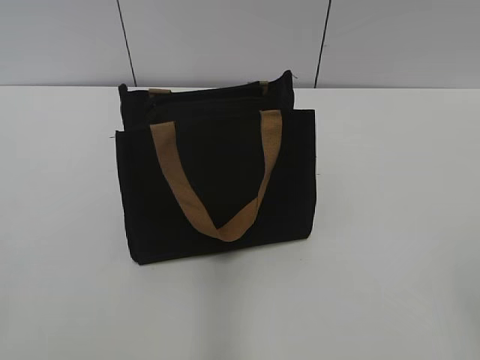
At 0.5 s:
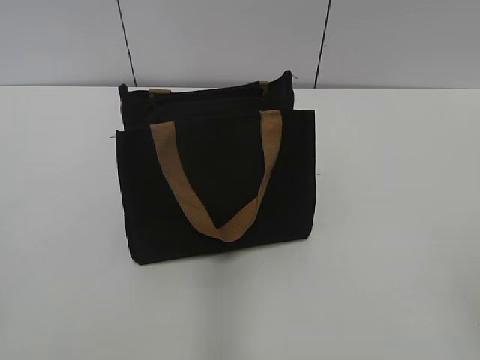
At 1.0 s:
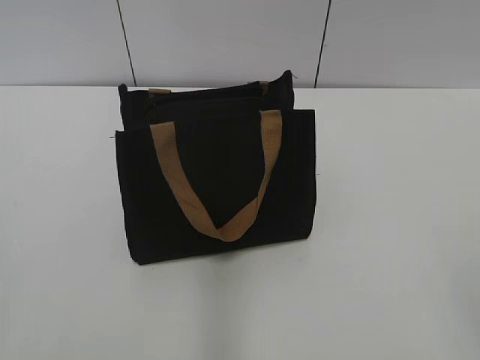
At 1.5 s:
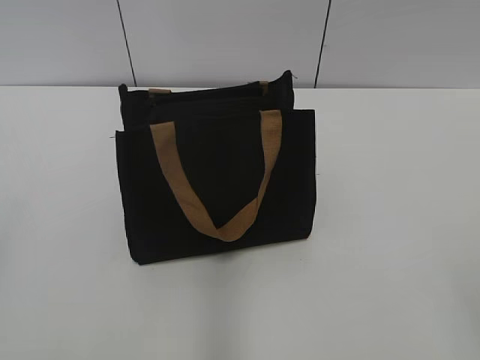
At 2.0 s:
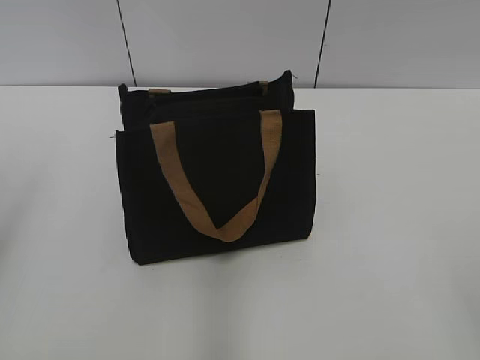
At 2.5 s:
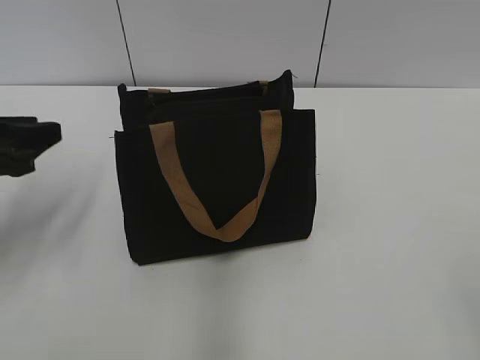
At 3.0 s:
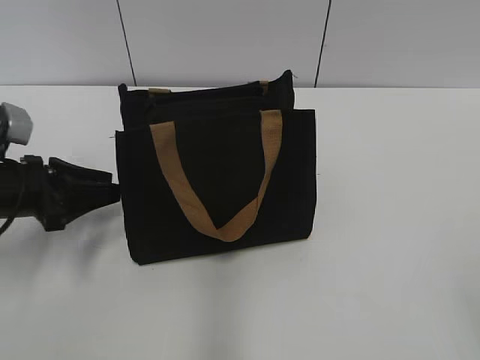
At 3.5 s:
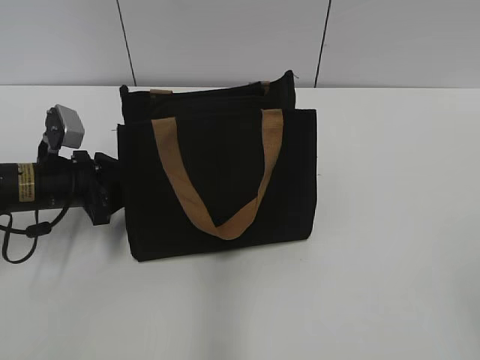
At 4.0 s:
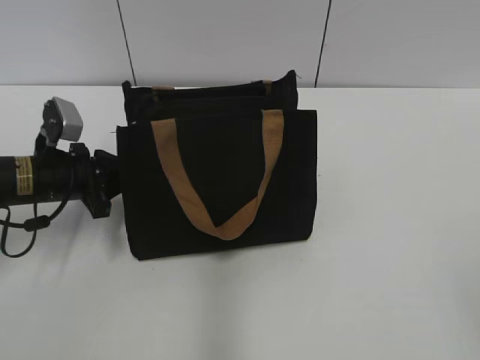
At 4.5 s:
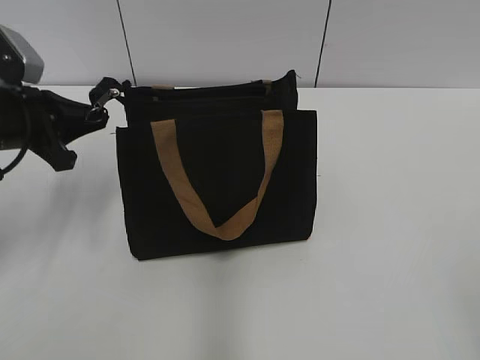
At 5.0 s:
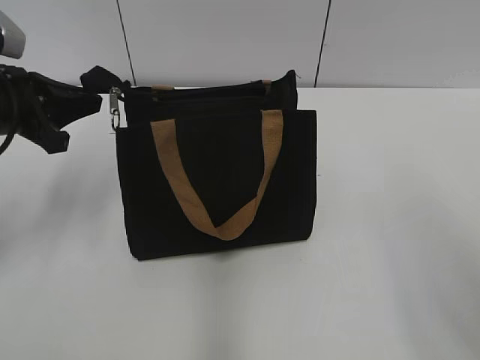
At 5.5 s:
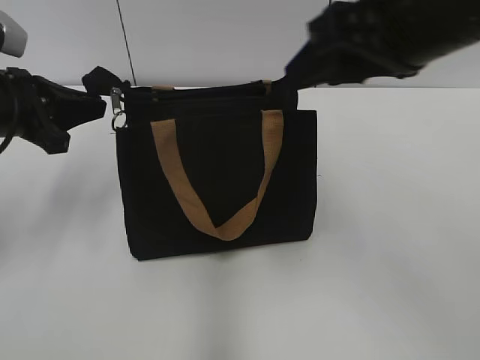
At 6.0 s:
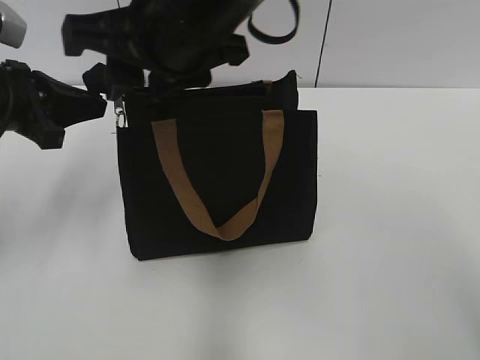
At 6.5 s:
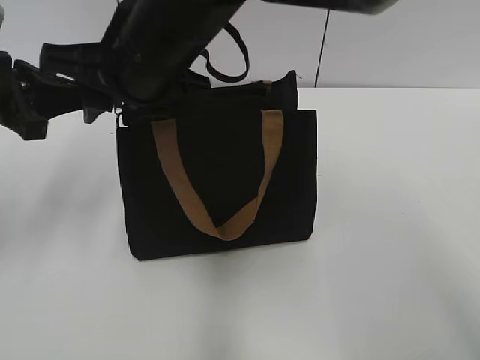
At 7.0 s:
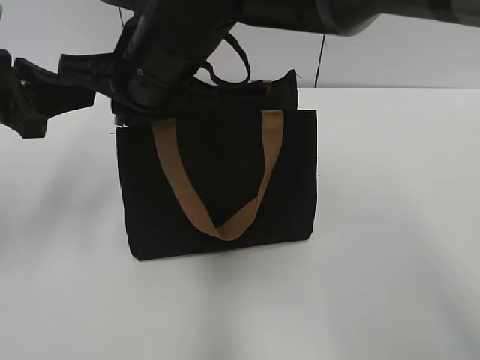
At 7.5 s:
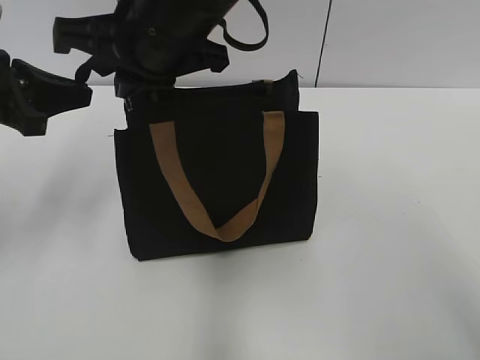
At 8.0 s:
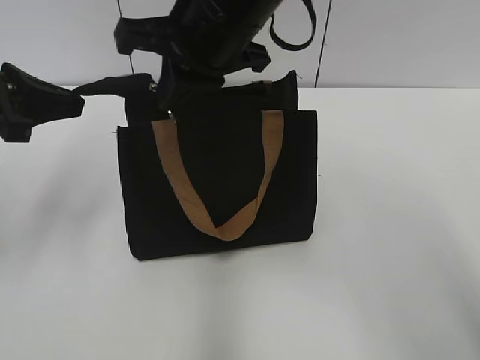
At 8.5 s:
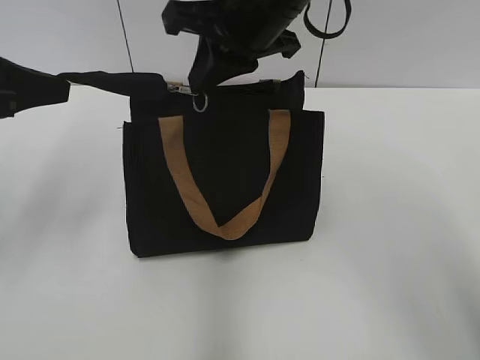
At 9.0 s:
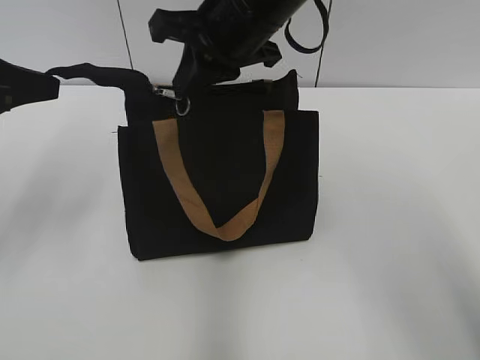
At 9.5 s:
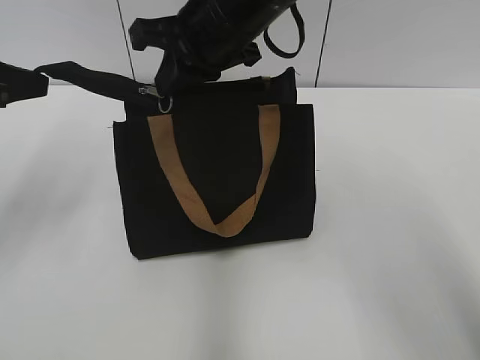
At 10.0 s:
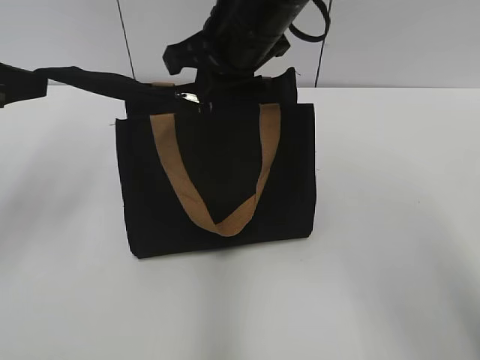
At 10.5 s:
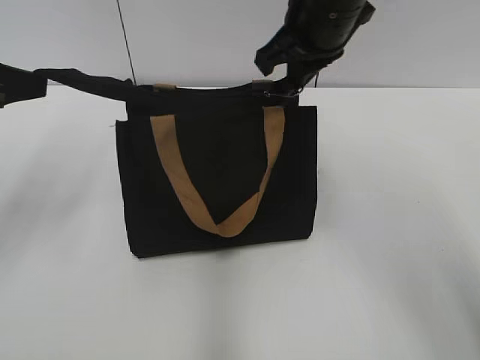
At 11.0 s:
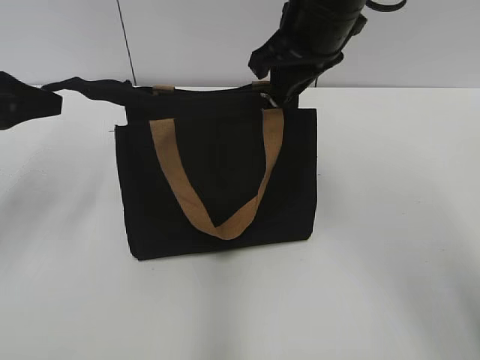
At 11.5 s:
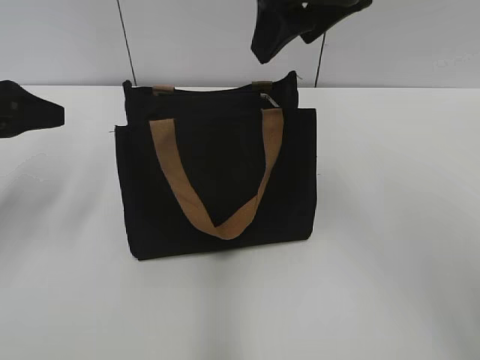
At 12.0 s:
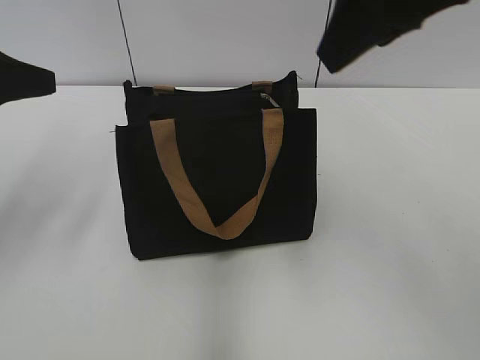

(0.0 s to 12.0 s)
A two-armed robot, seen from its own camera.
Step, 0.0 s - 11.0 s: Zip up the bag with your right hand.
2.0 s - 4.0 s: The left gripper is displaced downward and forward by approximately 30 cm, and closes its fingers.
4.0 s - 6.0 s: The left gripper heads upward, covering about 15 cm. Meanwhile the right gripper shifts about 40 cm to the left and forward.
6.0 s - 8.0 s: The right gripper closes its fingers.
8.0 s - 10.0 s: The right gripper moves about 5 cm.
10.0 s - 12.0 s: The right gripper moves upward, to the right and backward, approximately 20 cm, and opens its fingers; the left gripper opens up.

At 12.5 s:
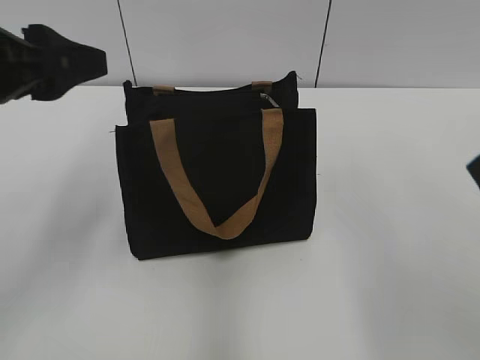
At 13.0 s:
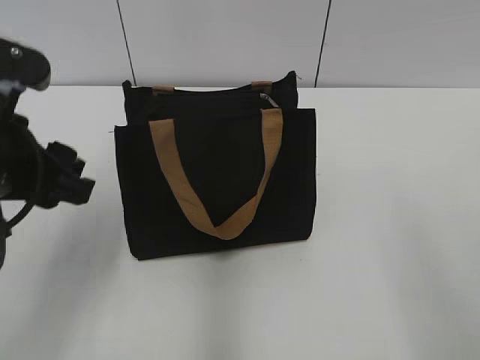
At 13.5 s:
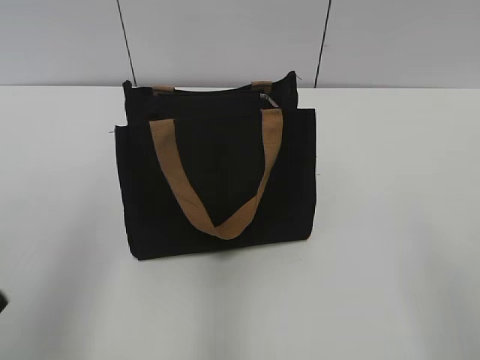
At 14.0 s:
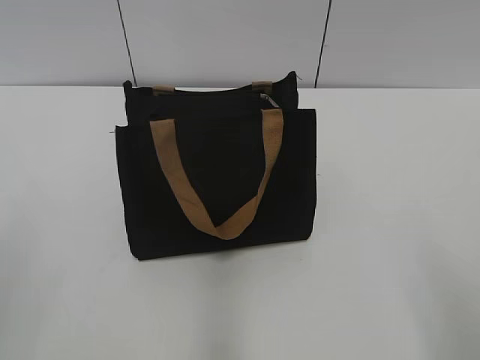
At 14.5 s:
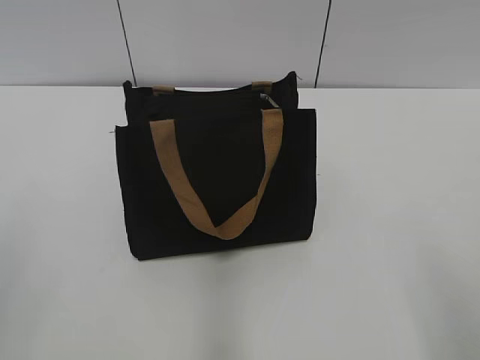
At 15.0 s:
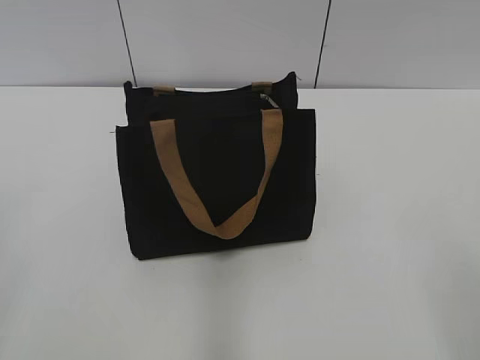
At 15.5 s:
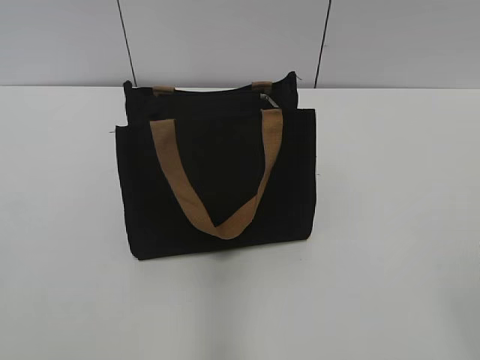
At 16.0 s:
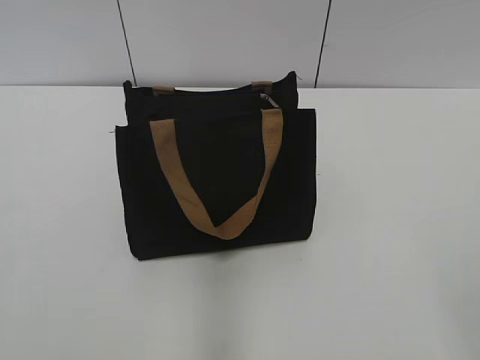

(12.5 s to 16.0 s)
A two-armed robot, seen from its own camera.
12.5 s - 14.5 s: The left gripper travels backward and to the left by roughly 20 cm.

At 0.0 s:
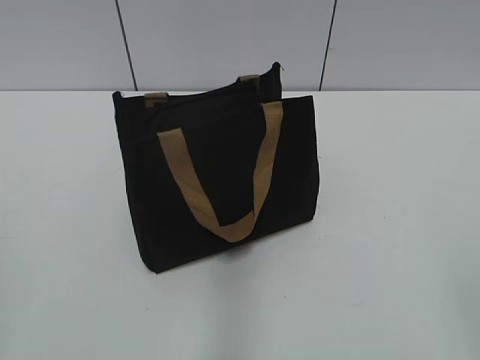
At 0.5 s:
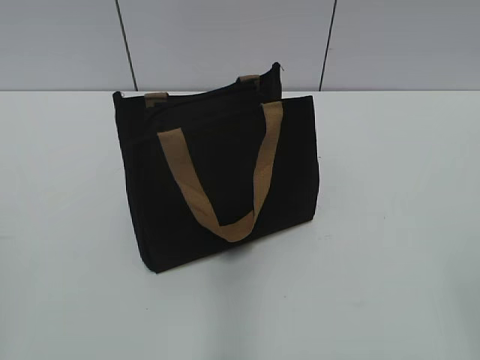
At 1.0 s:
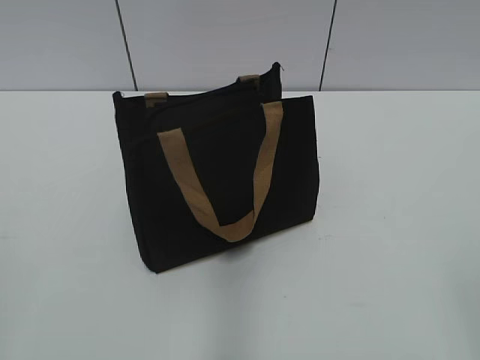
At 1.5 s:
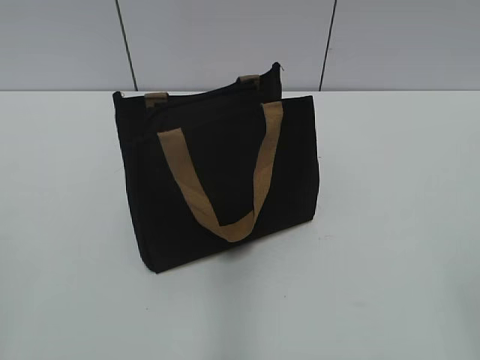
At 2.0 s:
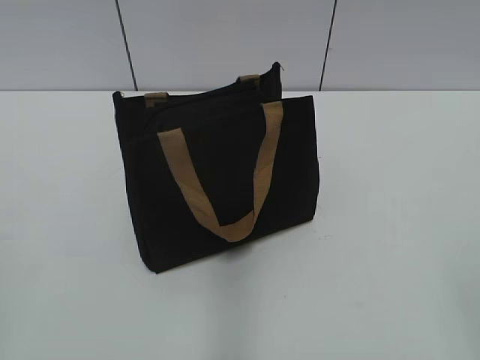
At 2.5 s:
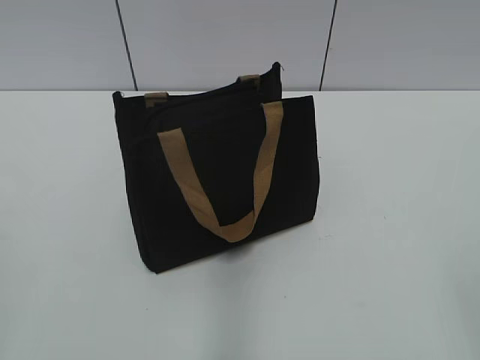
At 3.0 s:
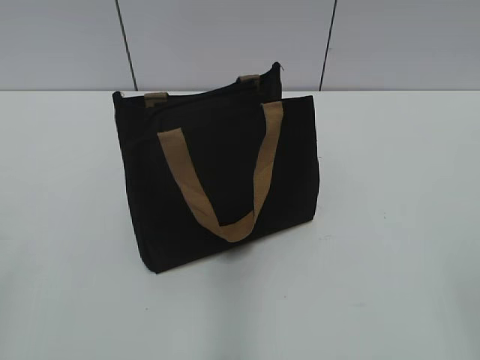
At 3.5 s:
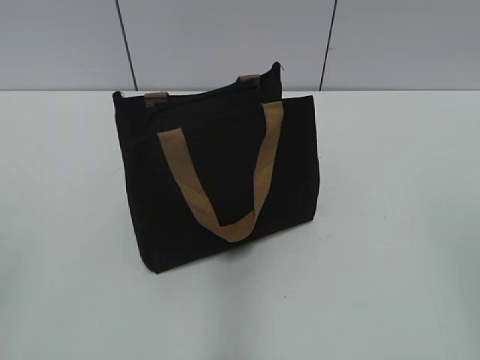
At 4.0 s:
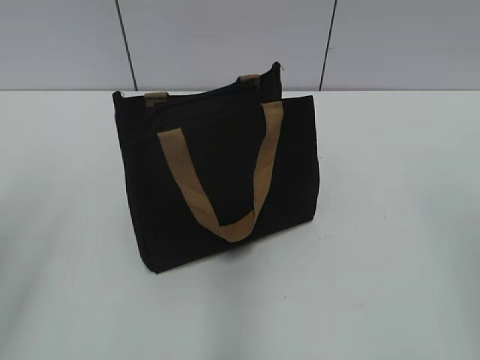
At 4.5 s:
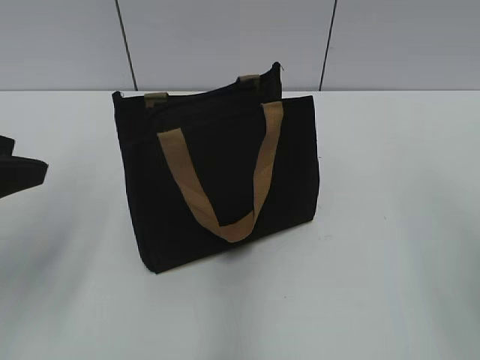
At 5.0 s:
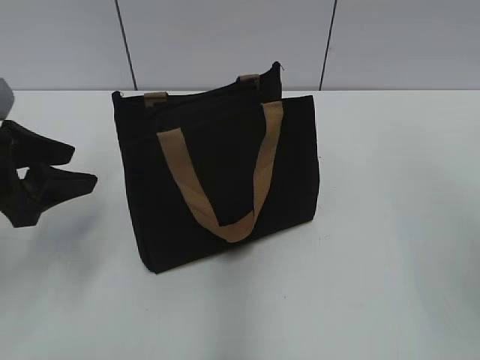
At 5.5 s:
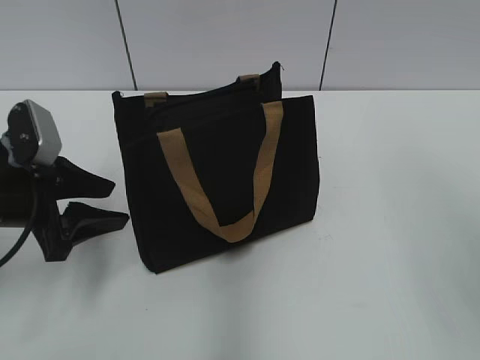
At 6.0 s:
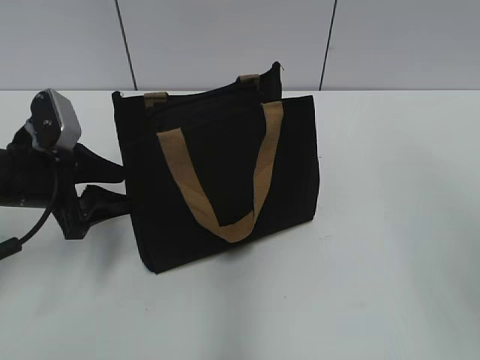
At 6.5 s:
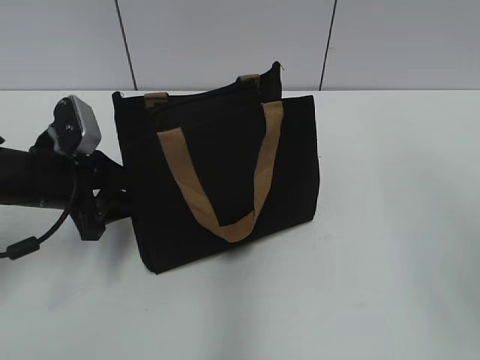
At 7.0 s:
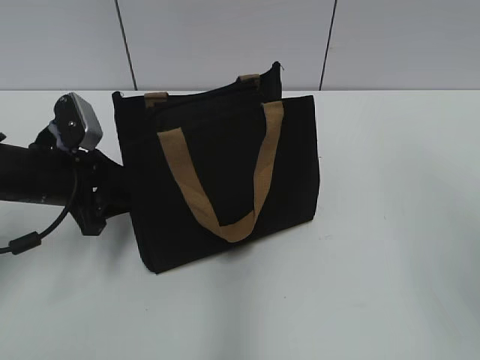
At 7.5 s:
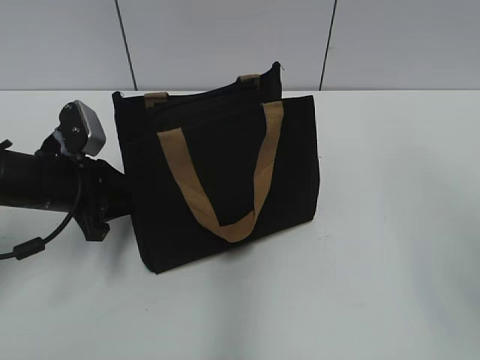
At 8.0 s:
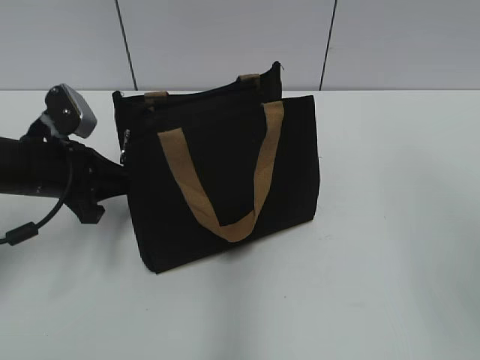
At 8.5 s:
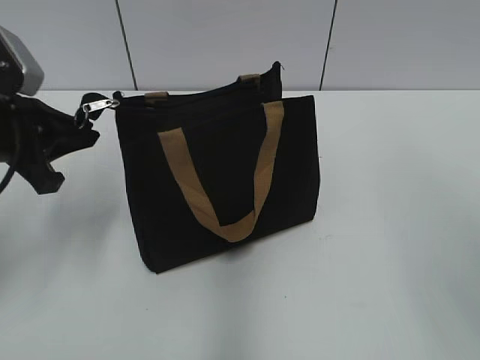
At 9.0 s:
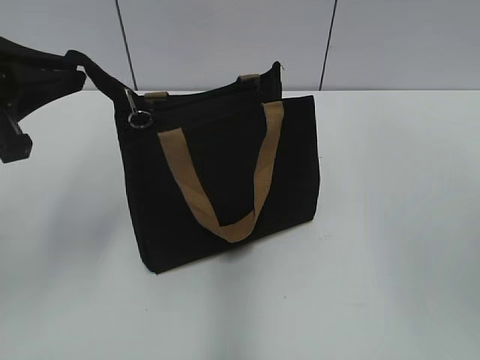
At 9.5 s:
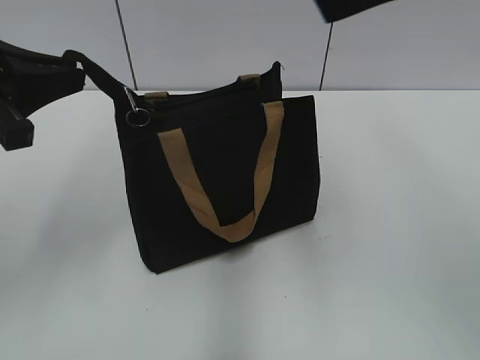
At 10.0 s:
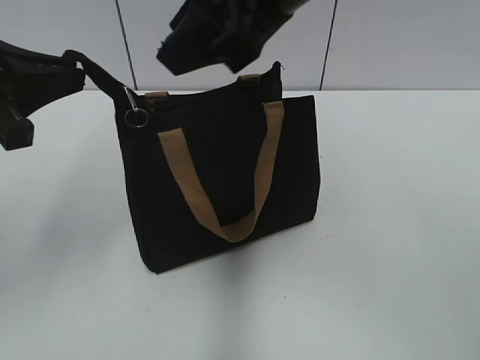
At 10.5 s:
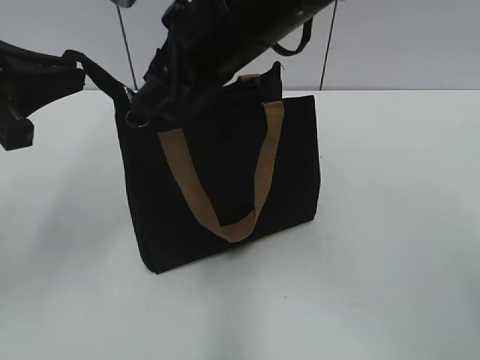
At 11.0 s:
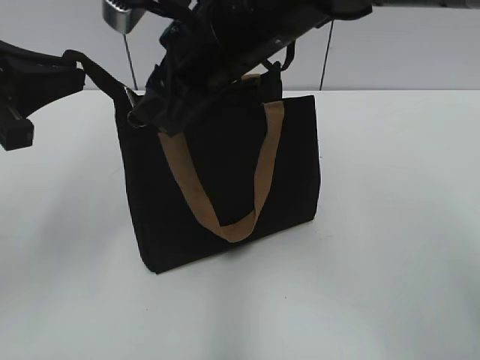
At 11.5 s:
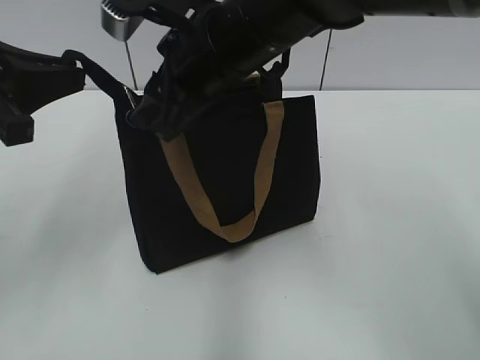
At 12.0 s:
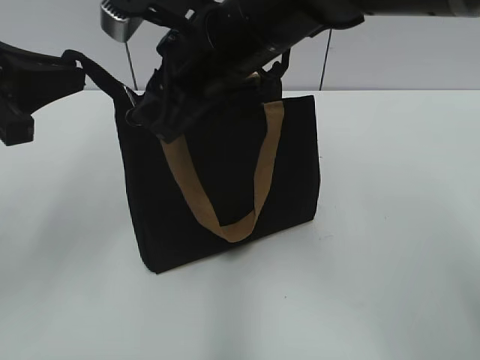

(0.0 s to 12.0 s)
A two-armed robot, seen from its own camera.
4.0 s - 6.0 s: The left gripper is displaced forward and downward by some 25 cm.
6.0 s - 8.0 s: The left gripper closes up.
8.0 s - 10.0 s: The right gripper goes about 25 cm to the left and forward, while the left gripper travels upward and backward by some 15 cm.
10.0 s - 12.0 s: The right gripper travels downward and to the left by approximately 10 cm.
